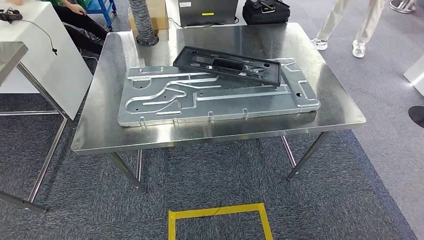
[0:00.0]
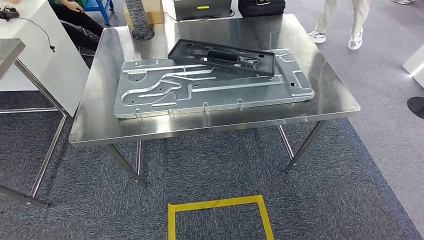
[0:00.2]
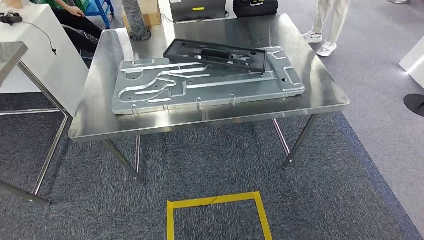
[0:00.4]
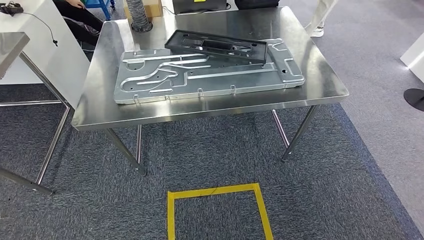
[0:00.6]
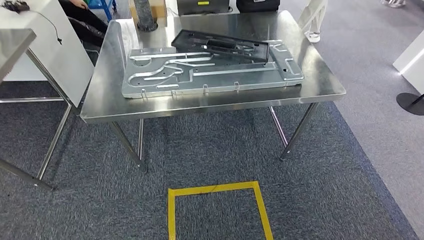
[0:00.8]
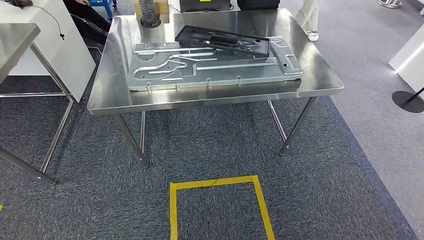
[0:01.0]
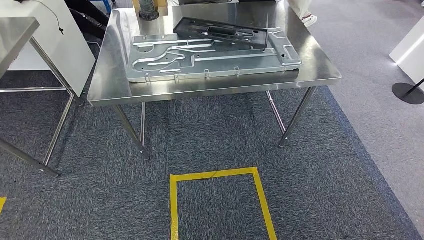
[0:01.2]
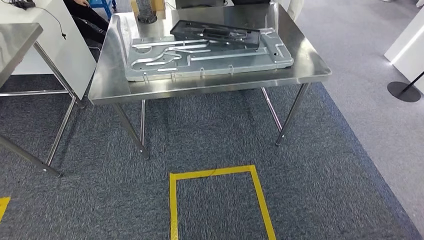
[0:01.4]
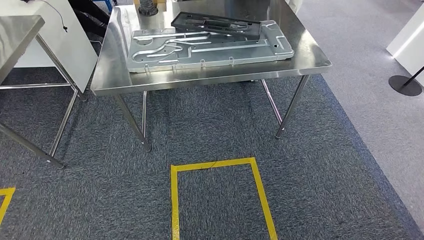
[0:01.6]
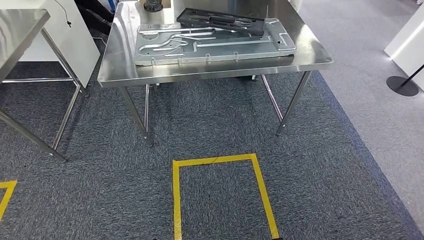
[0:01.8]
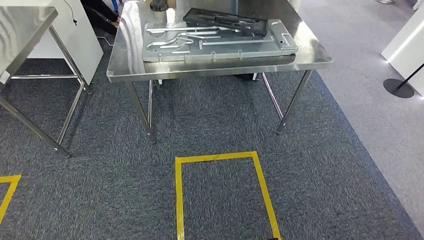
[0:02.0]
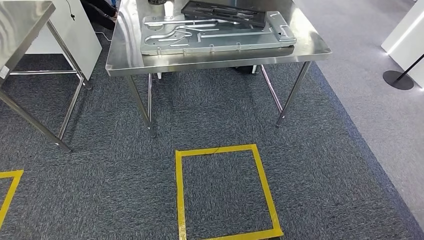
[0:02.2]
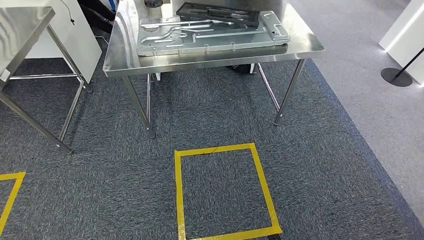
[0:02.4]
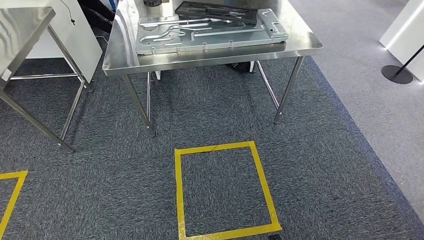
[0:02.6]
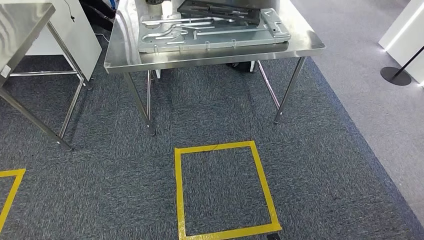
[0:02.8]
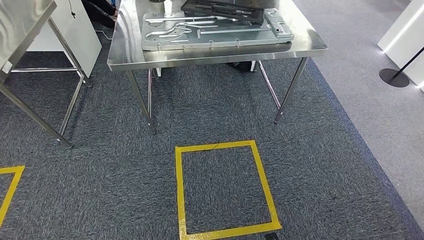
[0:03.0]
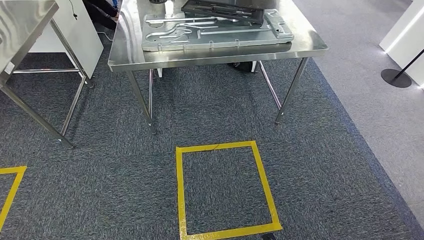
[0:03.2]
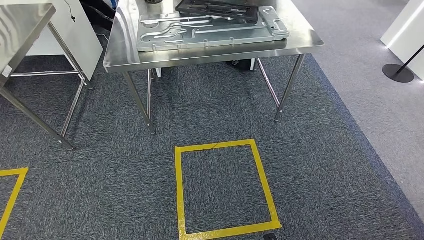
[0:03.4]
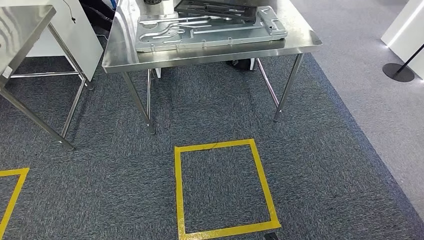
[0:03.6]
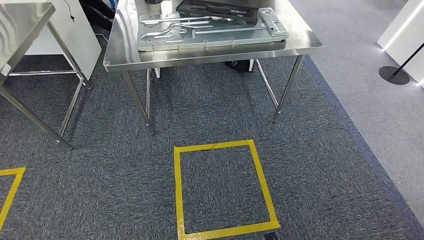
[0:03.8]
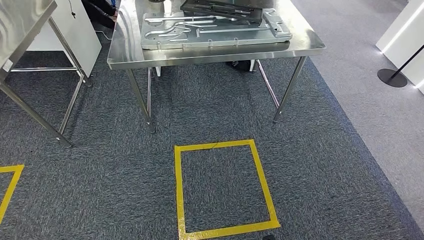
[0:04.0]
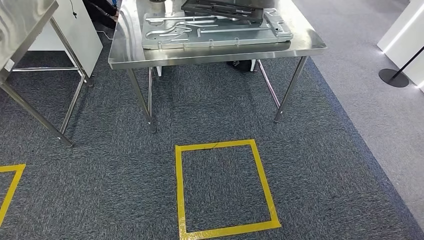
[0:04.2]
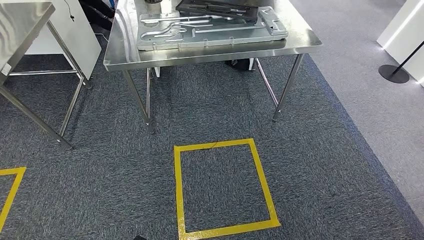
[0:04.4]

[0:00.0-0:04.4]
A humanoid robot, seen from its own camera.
Step, 0:00.0 to 0:04.4: Move to the initial position of the shelf.
0:03.0 to 0:04.4: The right hand is displaced backward by roughly 5 cm.
